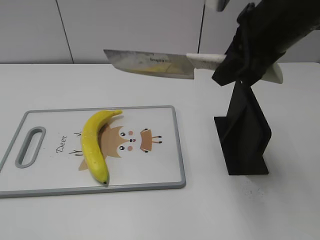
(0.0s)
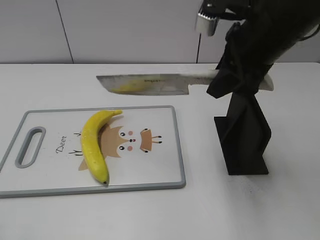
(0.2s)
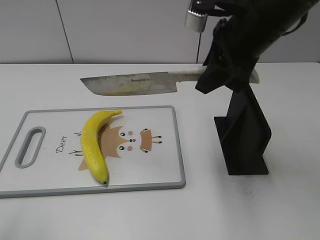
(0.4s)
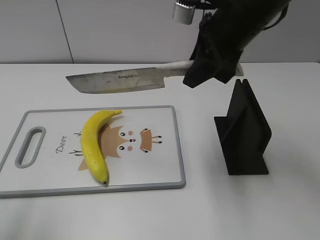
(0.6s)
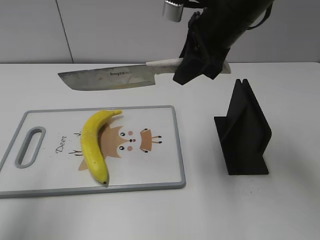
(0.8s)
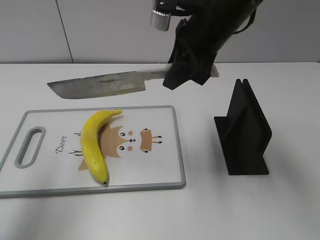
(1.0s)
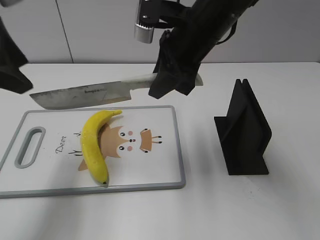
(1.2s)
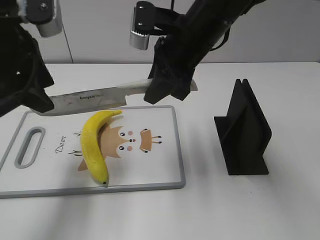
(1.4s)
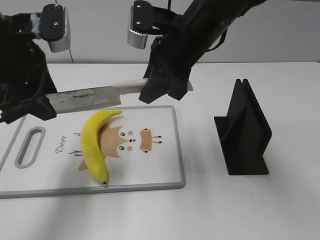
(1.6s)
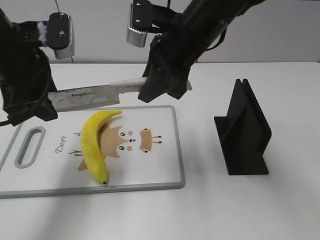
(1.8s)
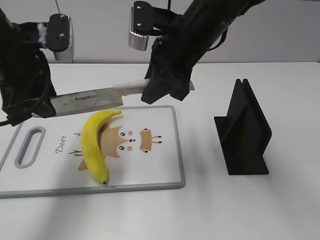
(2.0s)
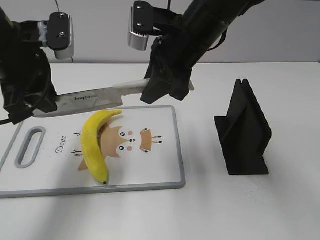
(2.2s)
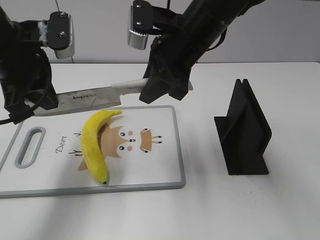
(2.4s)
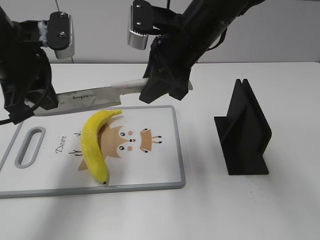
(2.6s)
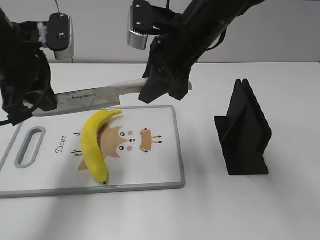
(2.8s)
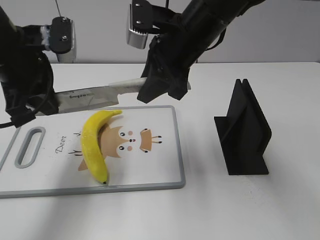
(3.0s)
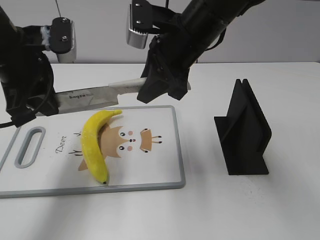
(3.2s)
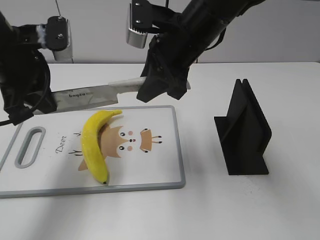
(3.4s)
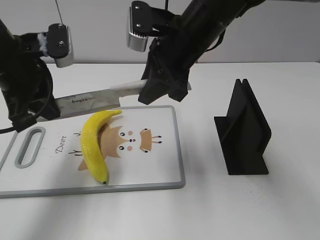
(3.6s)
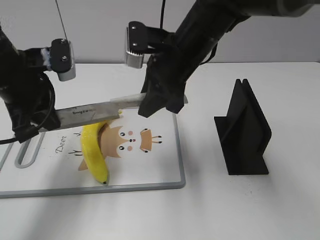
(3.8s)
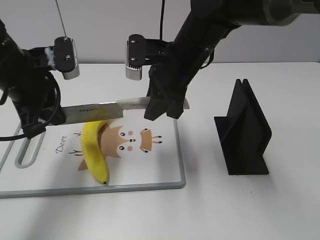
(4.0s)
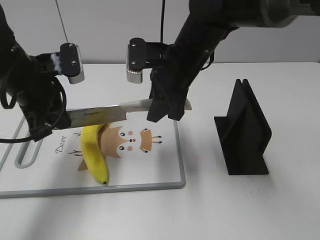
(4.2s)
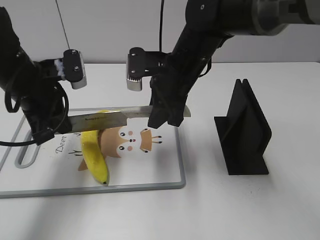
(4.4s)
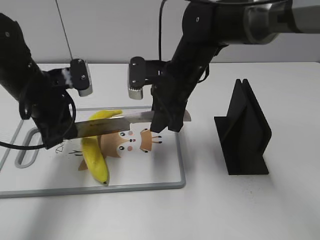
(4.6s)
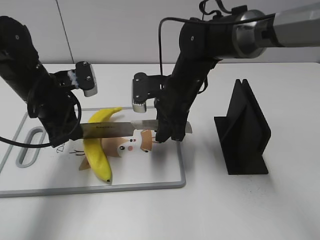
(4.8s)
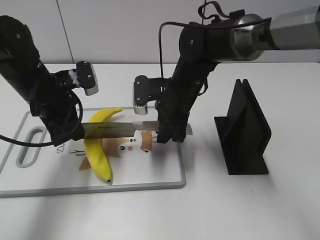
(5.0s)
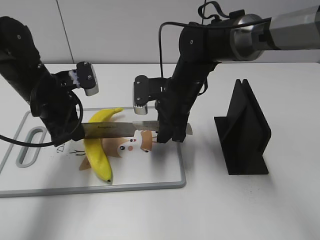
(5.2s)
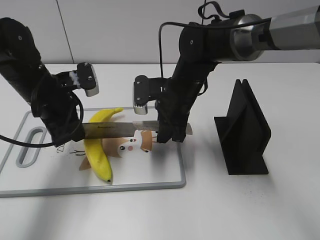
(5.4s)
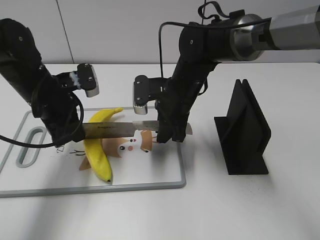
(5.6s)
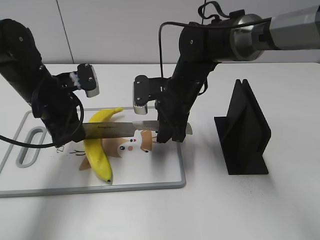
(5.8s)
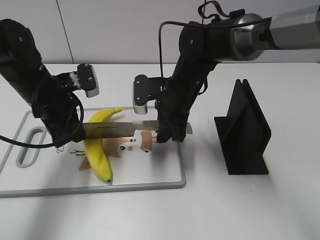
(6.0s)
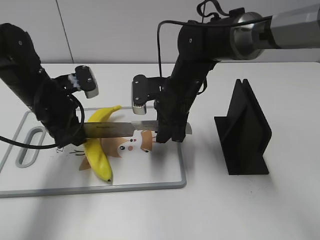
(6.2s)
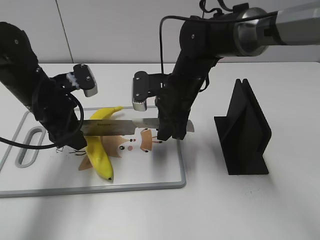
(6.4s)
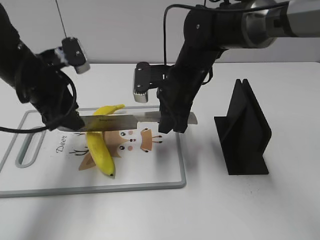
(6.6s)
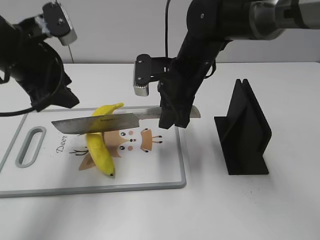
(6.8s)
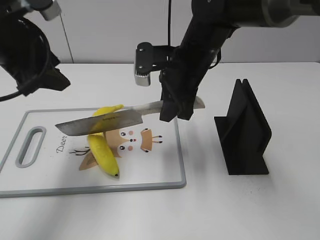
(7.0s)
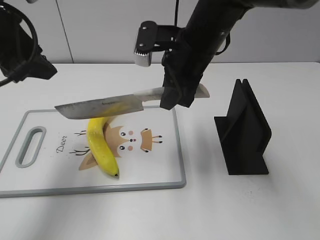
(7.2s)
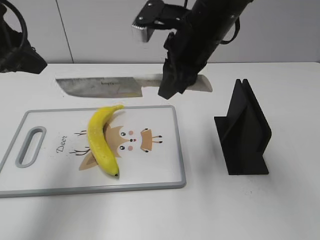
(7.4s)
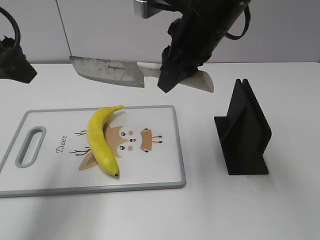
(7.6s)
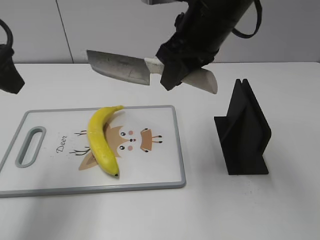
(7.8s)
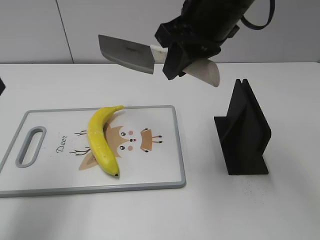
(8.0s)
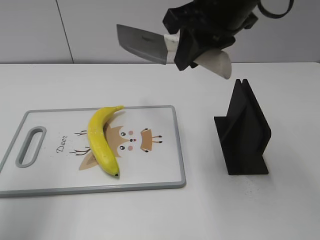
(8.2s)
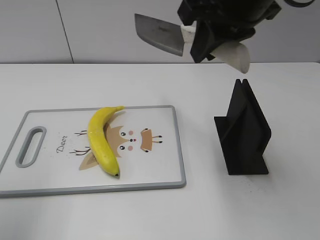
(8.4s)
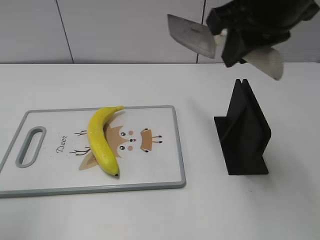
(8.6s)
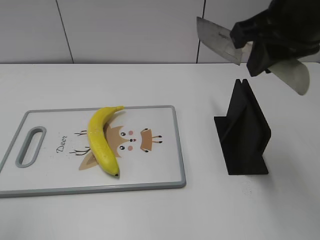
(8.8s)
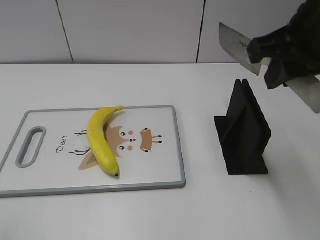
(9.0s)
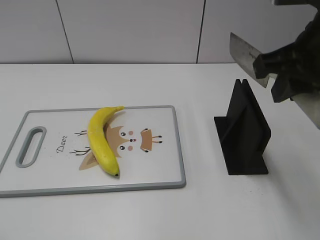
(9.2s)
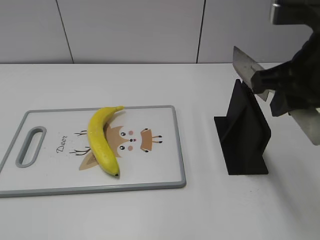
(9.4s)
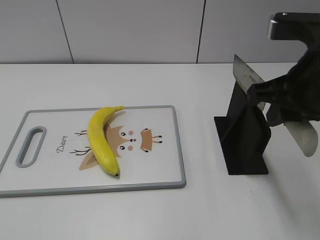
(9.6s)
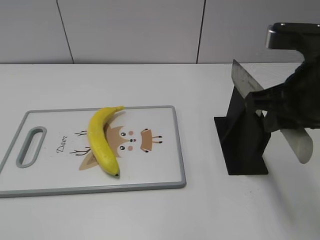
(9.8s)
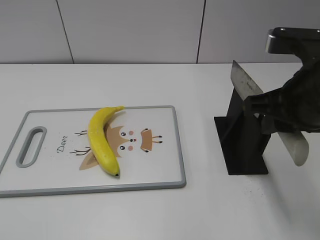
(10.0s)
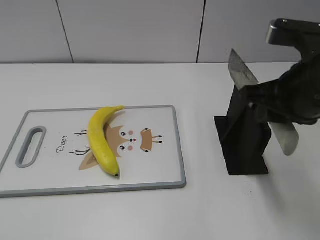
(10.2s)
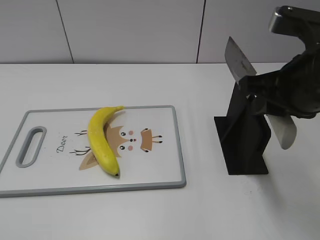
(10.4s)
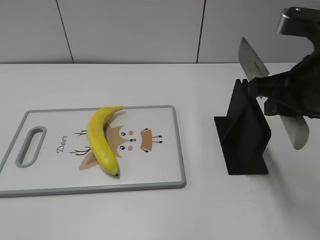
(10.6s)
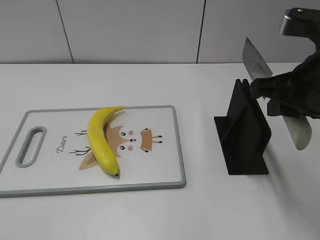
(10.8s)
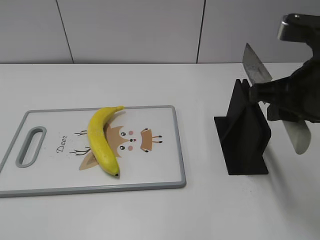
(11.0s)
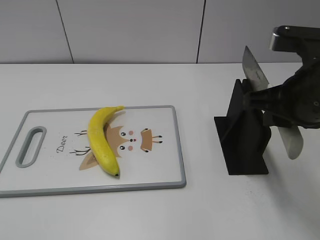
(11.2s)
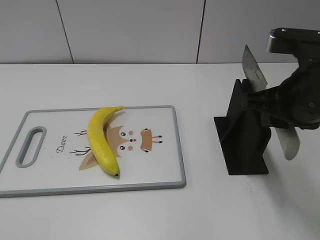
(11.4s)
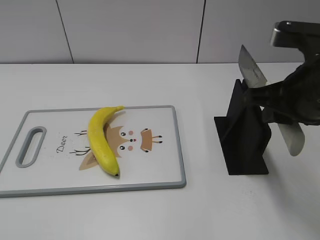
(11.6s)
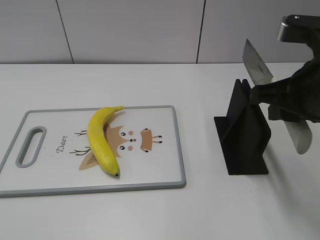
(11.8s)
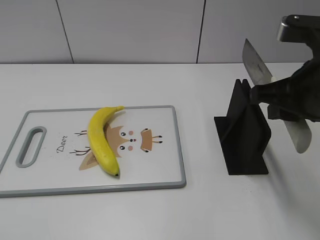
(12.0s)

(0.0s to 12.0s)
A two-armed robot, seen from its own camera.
Task of the whole recording: cut plastic banana.
Step, 0.0s - 5.0s: Lift the knife with your right hand.
Step, 5.2s - 9.6s: Cut the banana with your left hand.
Step, 10.4s - 11.6s: Lift the knife with your right hand.
0.0s - 1.6s: The right gripper goes about 15 cm to the left, downward and forward, while the left gripper goes some 30 cm forward and to the right.
1.6s - 3.0s: The left gripper closes up.
3.0s - 4.4s: The two grippers go roughly 5 cm downward.
4.4s - 6.0s: The grippers both shift downward by about 5 cm.
6.0s - 7.6s: The left gripper travels upward and backward by roughly 20 cm, and opens its fingers. Meanwhile the right gripper goes approximately 15 cm upward.
7.6s - 9.0s: The left gripper shifts roughly 15 cm backward and to the left; the right gripper moves to the right, backward and upward, some 15 cm.
9.0s - 10.4s: The right gripper is displaced downward by approximately 5 cm.
10.4s - 12.0s: There are only small adjustments of the grippers.

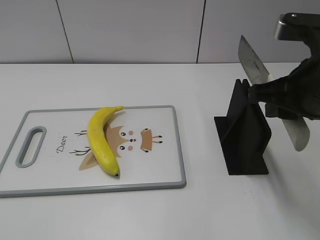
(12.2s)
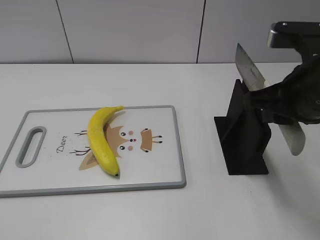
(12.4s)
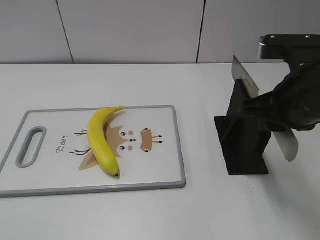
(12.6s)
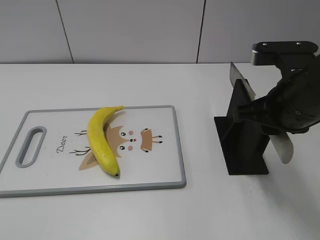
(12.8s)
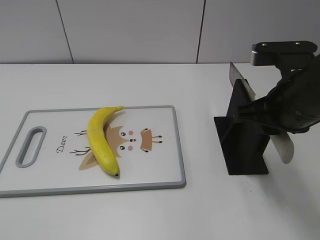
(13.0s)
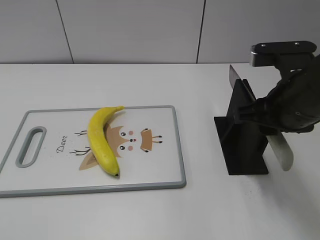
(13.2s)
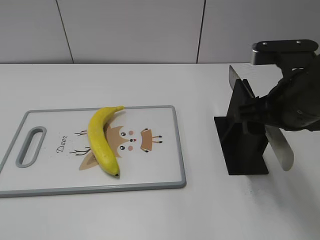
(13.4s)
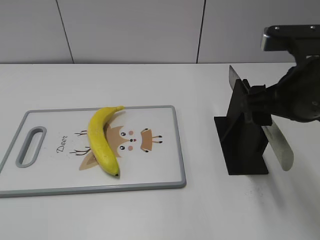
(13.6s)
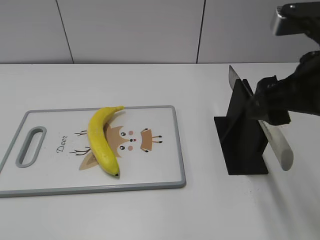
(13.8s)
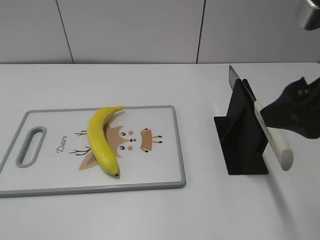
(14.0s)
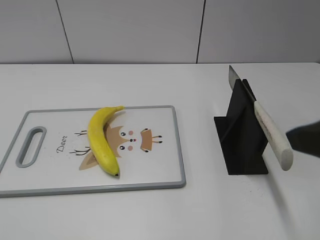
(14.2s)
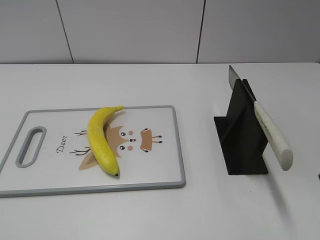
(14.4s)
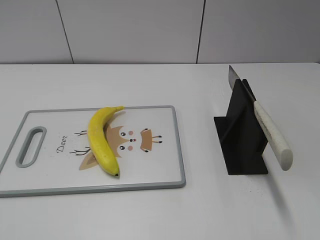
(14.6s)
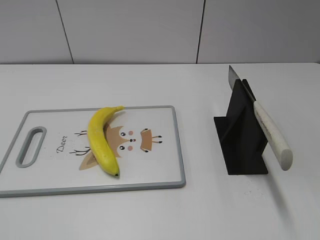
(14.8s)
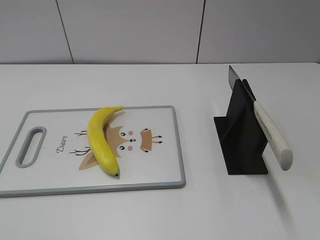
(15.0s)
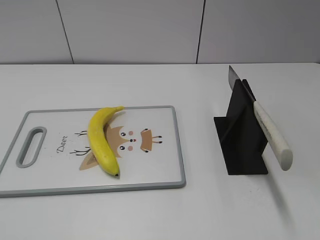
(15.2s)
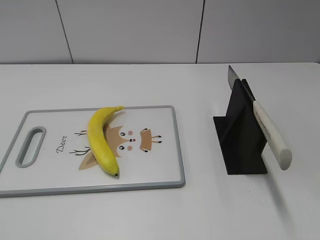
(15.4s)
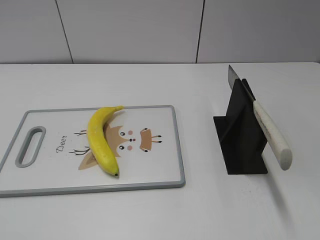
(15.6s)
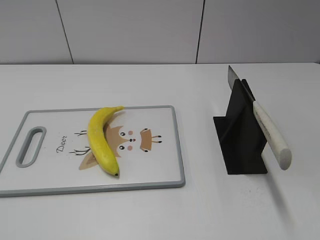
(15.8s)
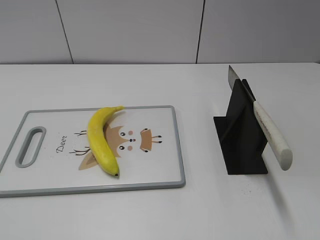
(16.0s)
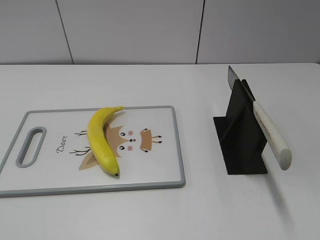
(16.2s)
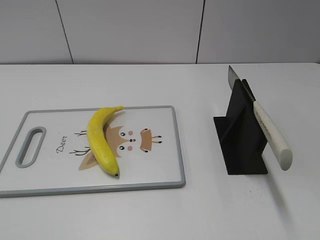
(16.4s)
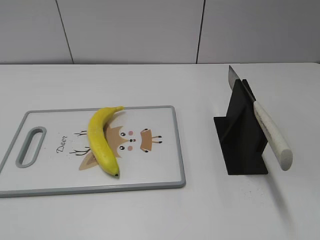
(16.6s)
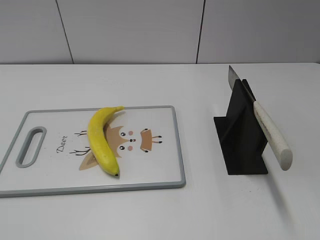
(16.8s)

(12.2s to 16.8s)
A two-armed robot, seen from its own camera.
Task of the whole recording: cut plastic banana.
Step, 12.2s - 16.8s: Place the knife on the storage rack with your right hand.
12.2s - 13.8s: The right gripper opens its fingers.
13.8s - 15.2s: The right gripper heads backward and to the right, covering about 25 cm.
